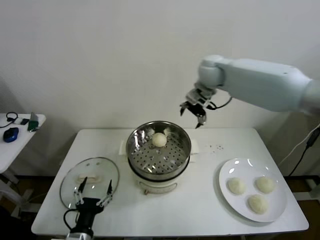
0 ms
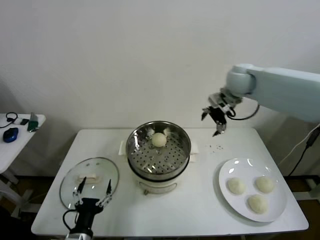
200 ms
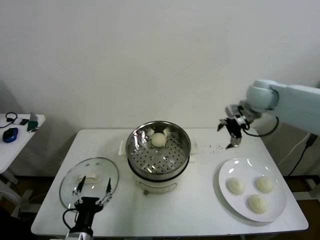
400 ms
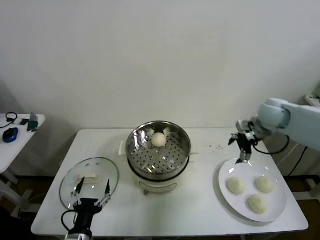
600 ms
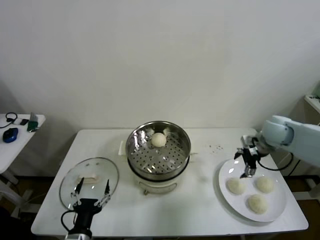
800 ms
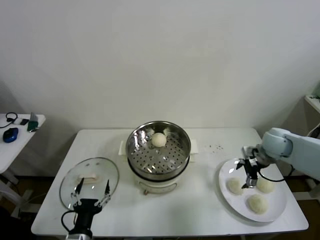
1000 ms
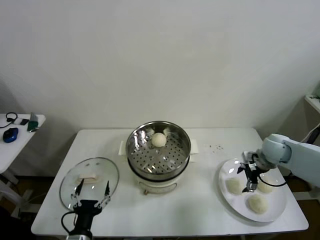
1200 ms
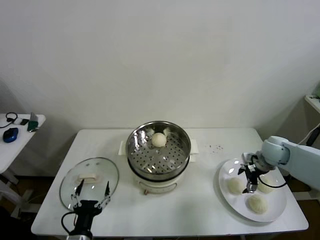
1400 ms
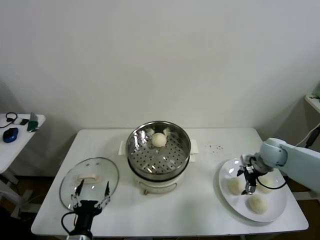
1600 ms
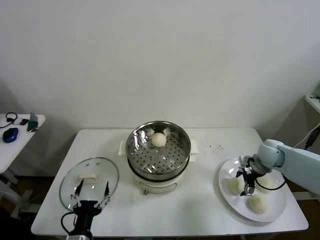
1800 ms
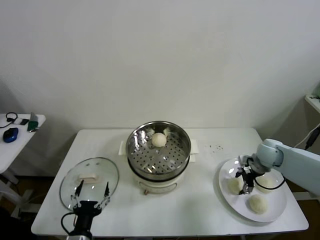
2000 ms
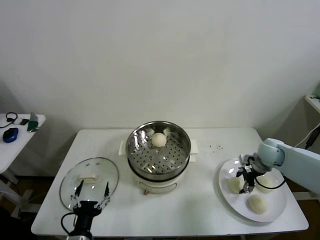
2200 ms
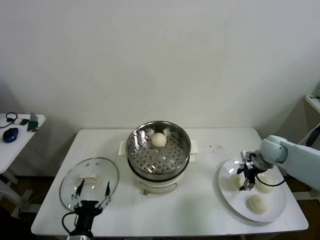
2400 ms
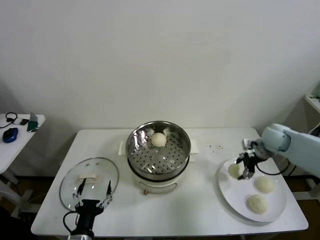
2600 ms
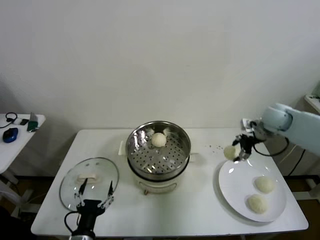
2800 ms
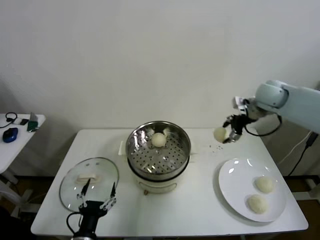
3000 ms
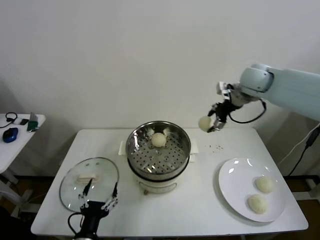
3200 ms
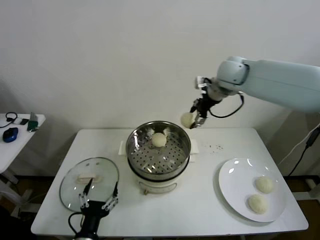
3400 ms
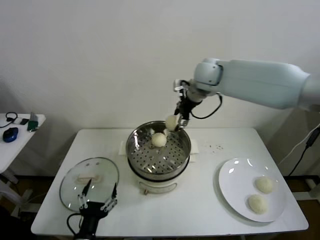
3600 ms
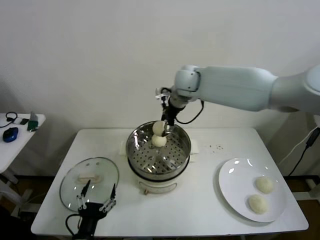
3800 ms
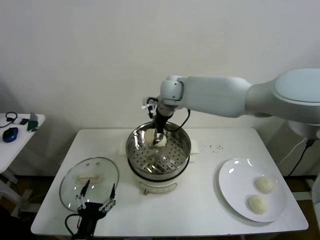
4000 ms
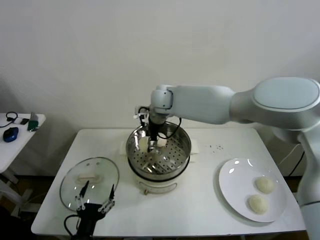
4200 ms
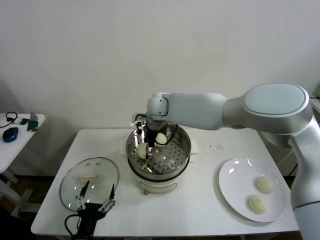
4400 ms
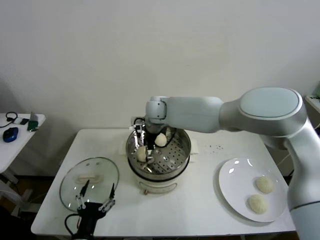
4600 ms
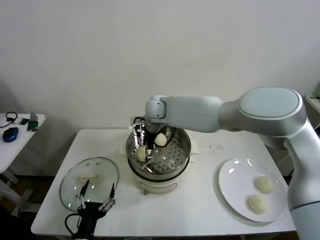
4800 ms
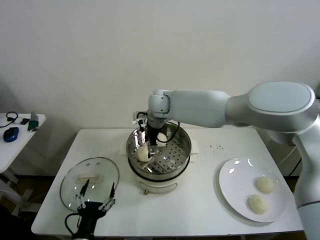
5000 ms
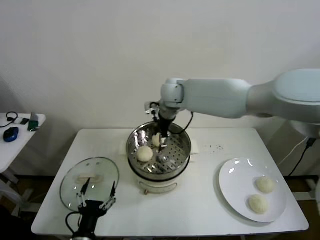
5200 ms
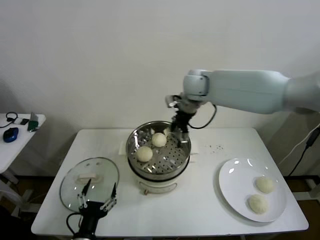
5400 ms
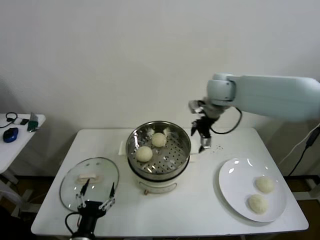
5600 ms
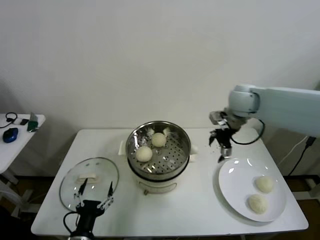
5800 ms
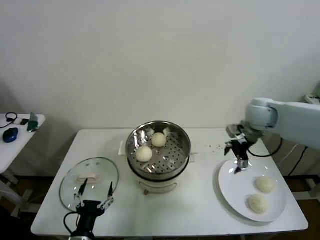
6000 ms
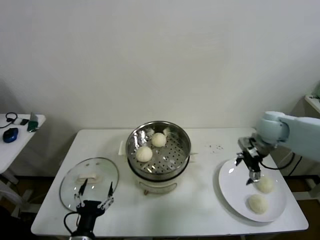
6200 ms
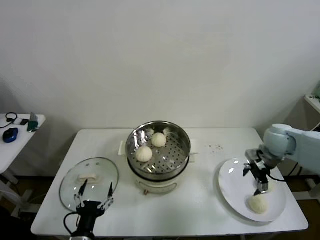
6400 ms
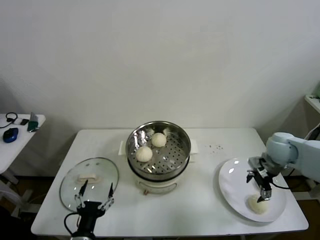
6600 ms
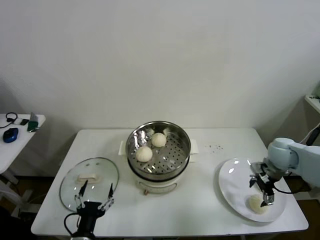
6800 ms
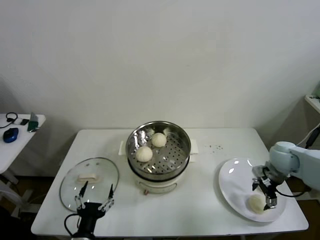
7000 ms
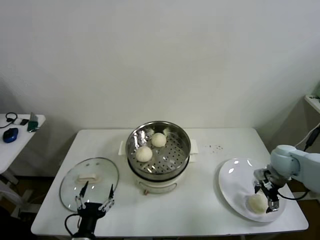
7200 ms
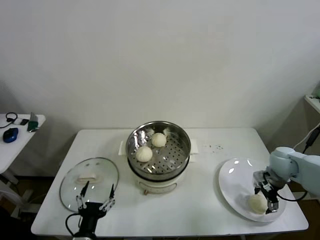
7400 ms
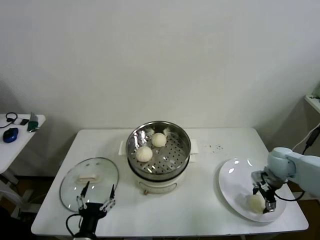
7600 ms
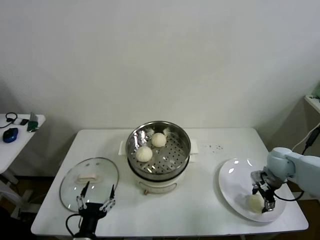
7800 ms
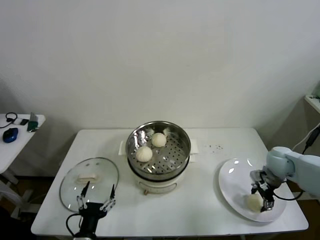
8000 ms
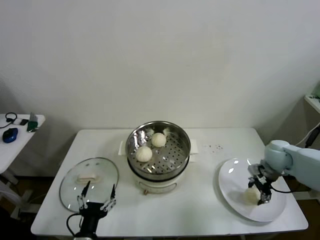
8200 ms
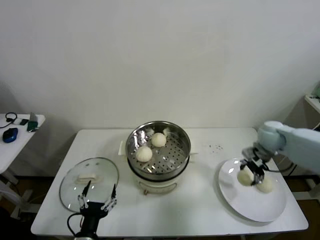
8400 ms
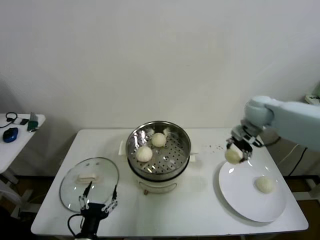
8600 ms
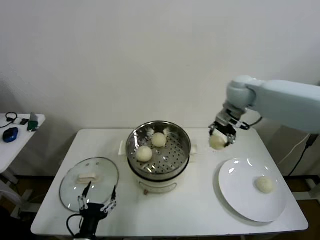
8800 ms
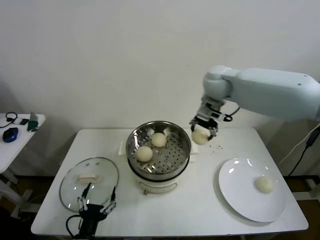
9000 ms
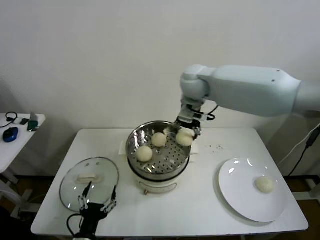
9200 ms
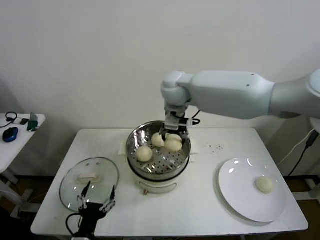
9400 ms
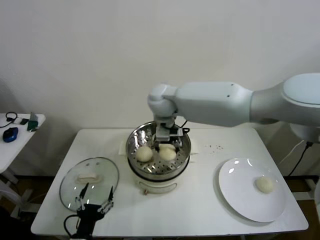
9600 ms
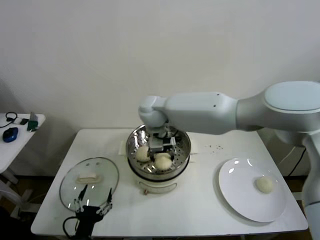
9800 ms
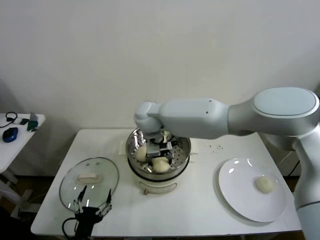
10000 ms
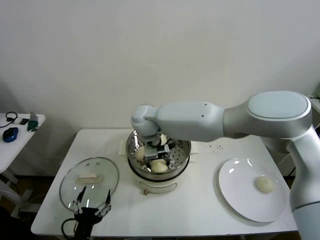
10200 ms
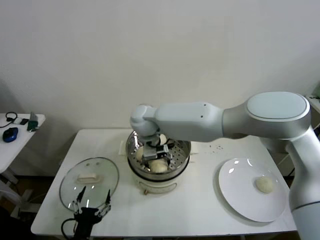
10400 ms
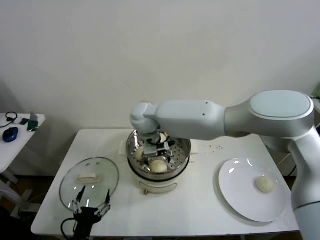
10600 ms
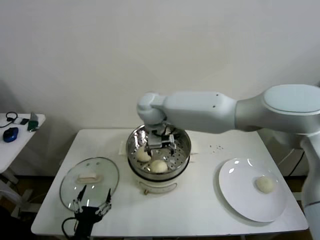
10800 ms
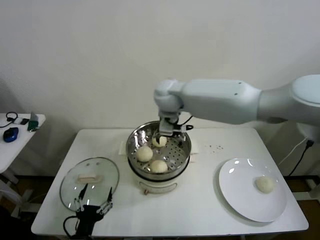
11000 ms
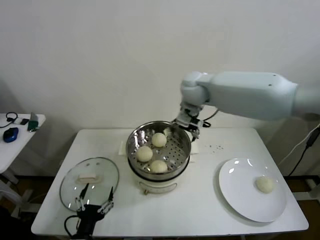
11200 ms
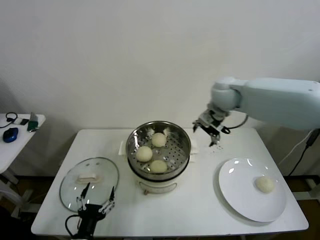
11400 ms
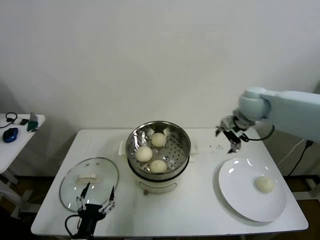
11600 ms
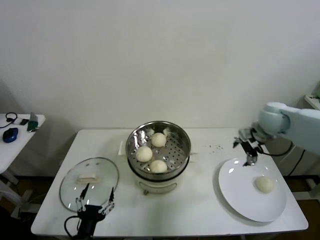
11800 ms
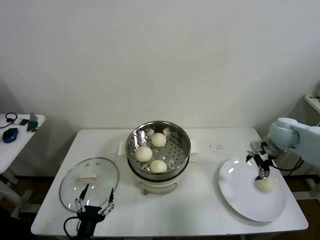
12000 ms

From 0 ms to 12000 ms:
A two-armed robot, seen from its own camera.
Step, from 0 ms to 2200 ms: Grasp the baozi in the plate with right gripper.
Step, from 2400 ms to 4800 ms: Place the baozi on the steamer with right gripper.
Step, from 5000 ms to 7800 ms: Grasp the baozi in the plate with right gripper.
Step, from 8000 ms to 10400 ms: Place the baozi on the steamer with right gripper.
From 0 ms to 1600 ms: The right gripper heads downward, to the right and backward, covering roughly 35 cm.
From 1600 ms to 3000 ms: The right gripper heads upward, covering roughly 20 cm, and closes its fingers.
From 3000 ms to 4400 ms: The right gripper goes about 35 cm to the left.
From 4400 ms to 6000 ms: The right gripper shifts approximately 35 cm to the right, and opens up.
From 6000 ms to 7600 ms: The right gripper is displaced downward, to the right and backward by some 20 cm.
From 7600 ms to 9000 ms: The right gripper travels to the left, upward and forward by roughly 40 cm, and closes up.
From 9000 ms to 10400 ms: The right gripper travels to the left and downward by approximately 25 cm, and opens its fingers.
From 10400 ms to 12000 ms: The right gripper is displaced to the right by approximately 50 cm.

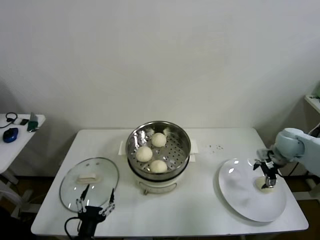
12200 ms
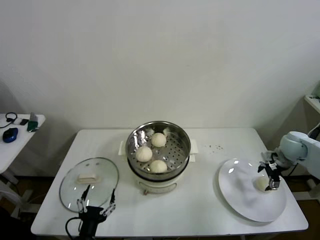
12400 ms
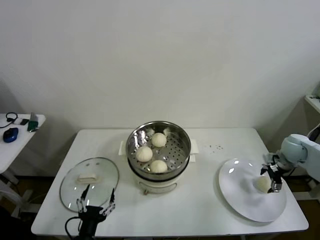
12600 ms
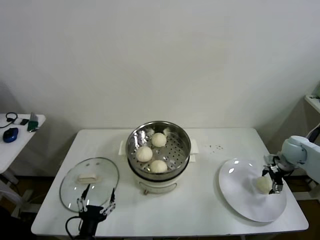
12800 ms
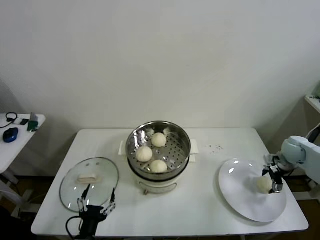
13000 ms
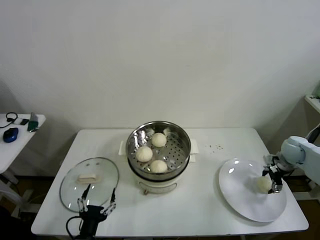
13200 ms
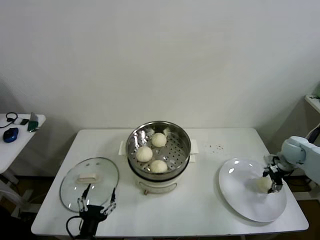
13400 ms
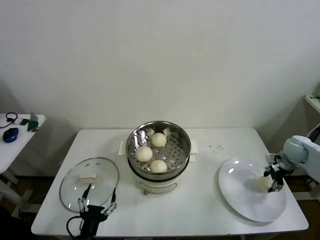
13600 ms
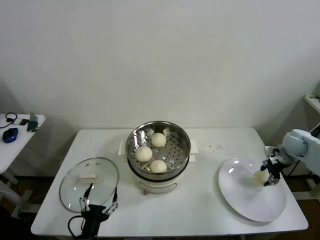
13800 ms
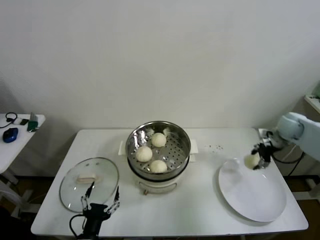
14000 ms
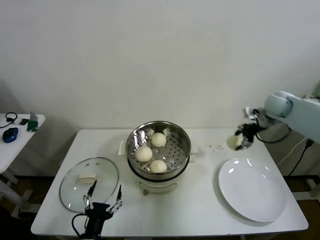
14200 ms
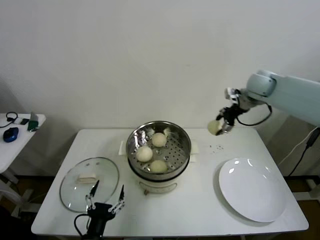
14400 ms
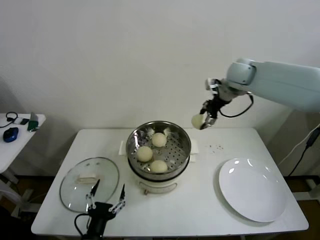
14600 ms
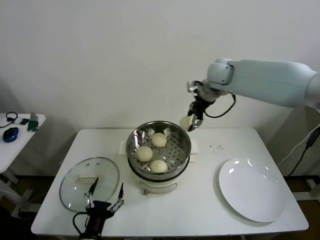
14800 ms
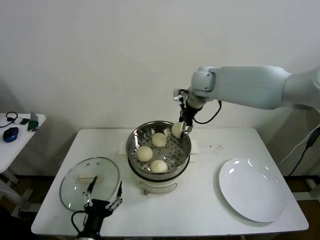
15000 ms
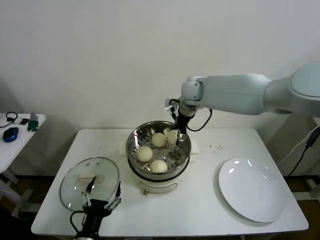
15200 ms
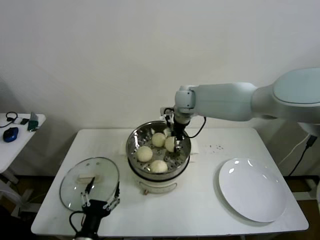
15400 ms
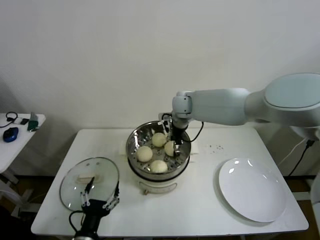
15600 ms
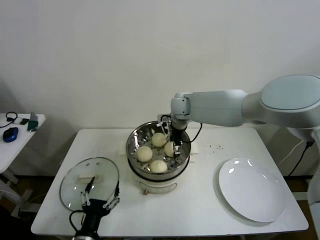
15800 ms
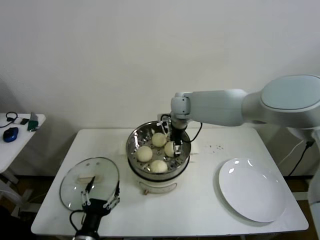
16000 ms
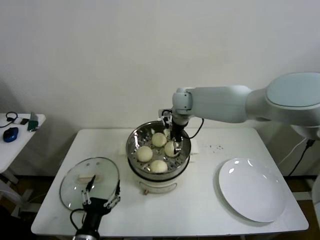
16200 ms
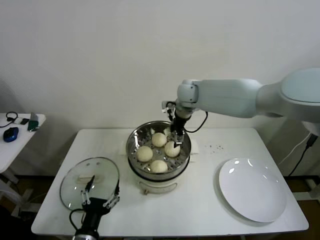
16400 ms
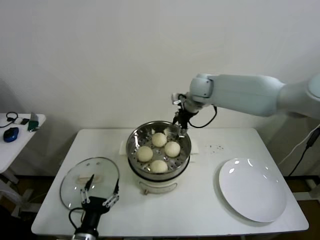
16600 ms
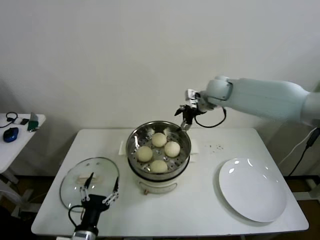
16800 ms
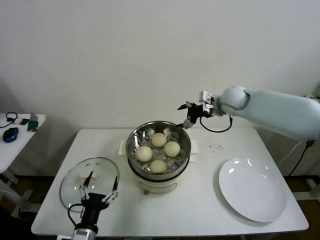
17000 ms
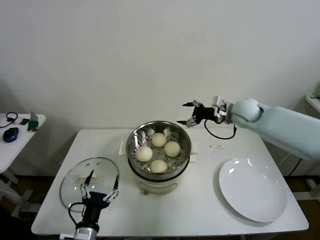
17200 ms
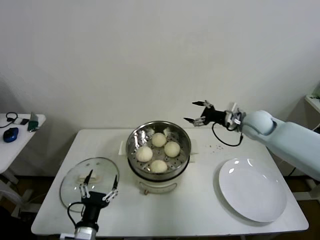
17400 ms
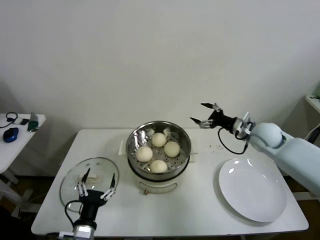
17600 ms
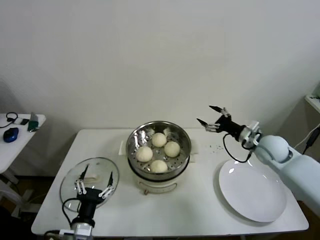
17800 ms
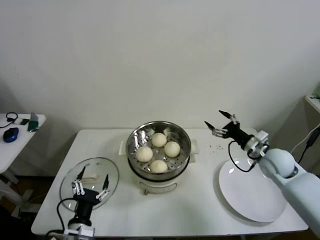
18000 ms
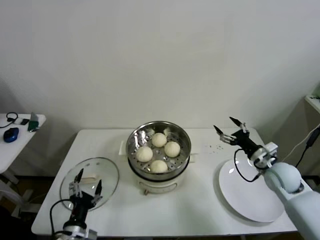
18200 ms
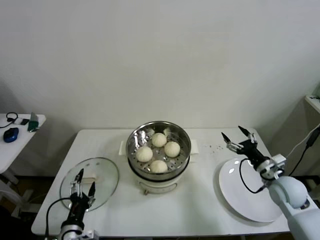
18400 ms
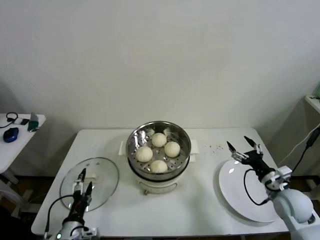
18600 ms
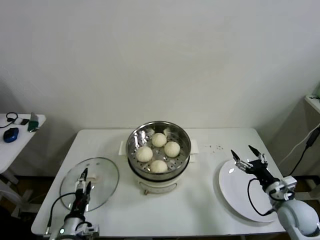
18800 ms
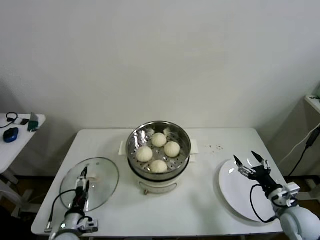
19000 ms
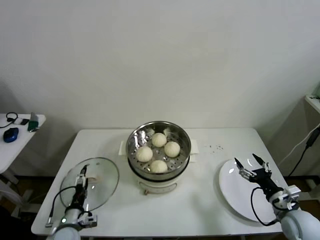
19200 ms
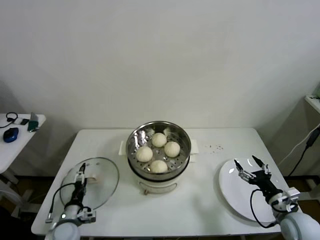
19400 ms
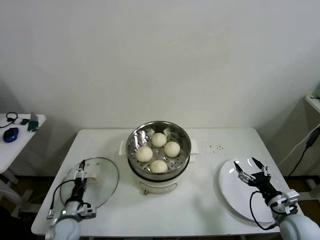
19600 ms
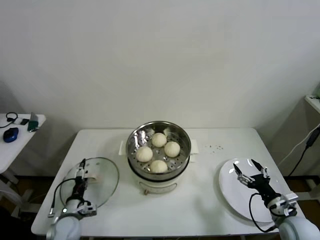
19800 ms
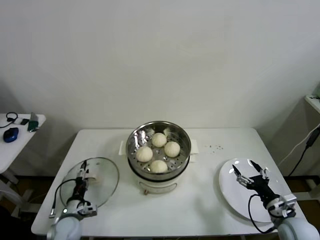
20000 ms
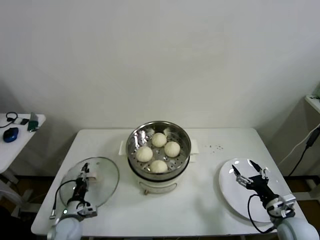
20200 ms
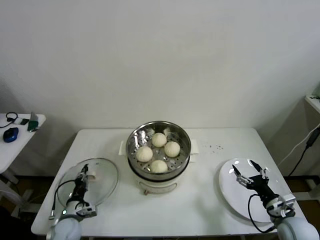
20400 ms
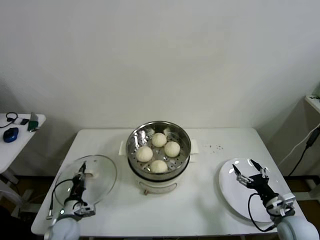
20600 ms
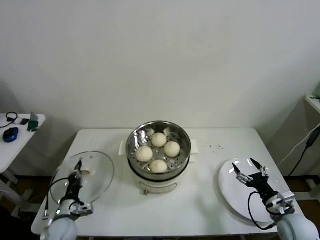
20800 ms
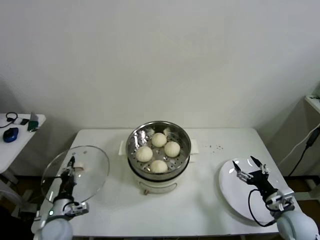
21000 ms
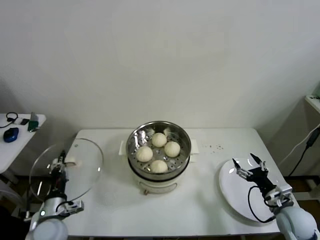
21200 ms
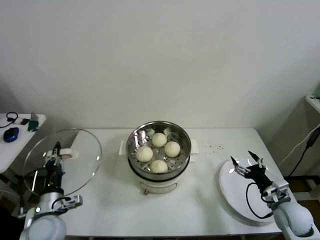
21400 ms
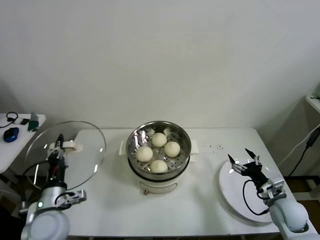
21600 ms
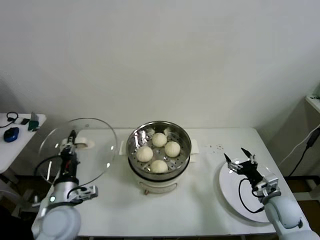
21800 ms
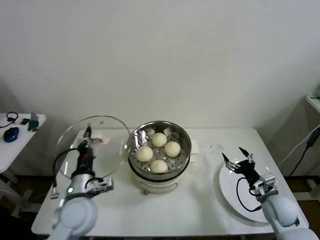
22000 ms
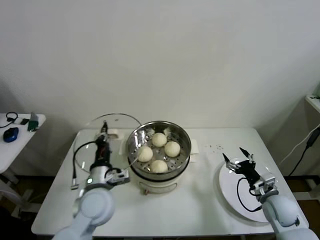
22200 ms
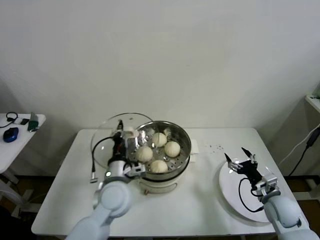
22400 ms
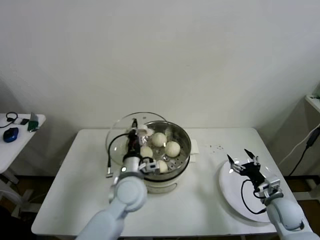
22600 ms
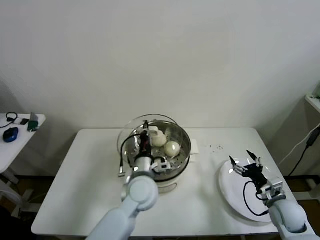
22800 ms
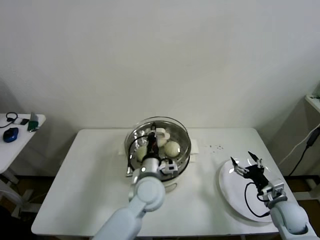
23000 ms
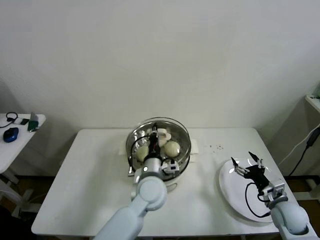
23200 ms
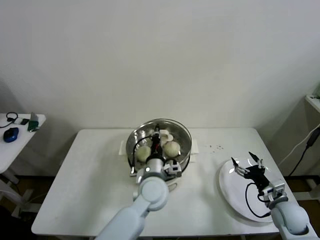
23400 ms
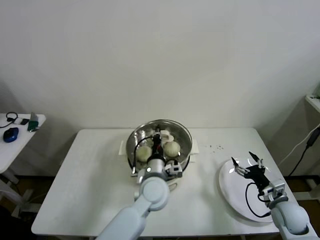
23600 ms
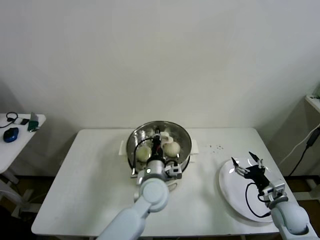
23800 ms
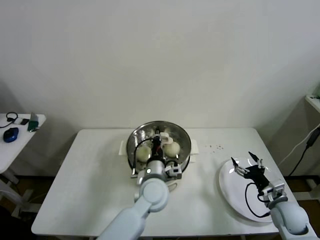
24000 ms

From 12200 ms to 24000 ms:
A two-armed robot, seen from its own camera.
Step, from 13800 ms to 16000 ms: Place the baozi on the steamer with right gripper.
Step, from 16200 ms to 20400 ms: Grasp the pot lid with left gripper.
From 12200 ms to 13600 ms: The right gripper travels to the right by roughly 5 cm, and closes its fingers.
From 13600 ms to 15200 ms: The right gripper shifts approximately 40 cm to the left and upward.
From 15200 ms to 16600 ms: The right gripper opens.
From 16600 ms to 18200 ms: The right gripper moves to the right, backward and downward, approximately 40 cm.
From 18200 ms to 19600 ms: The right gripper moves backward and downward, some 15 cm. The left gripper shifts approximately 15 cm forward, downward and to the left.
From 19600 ms to 21000 ms: The left gripper closes its fingers.
From 21000 ms to 22600 ms: The right gripper changes place by some 5 cm. The left gripper travels to the right and upward by about 30 cm.
From 22600 ms to 24000 ms: The left gripper moves to the right, roughly 10 cm.
